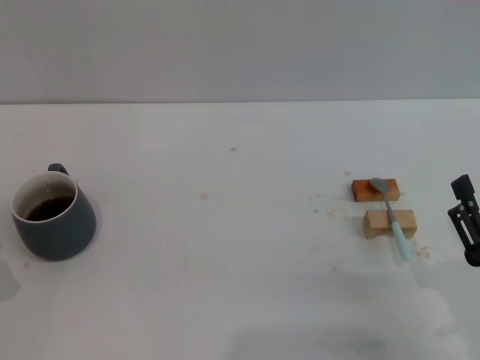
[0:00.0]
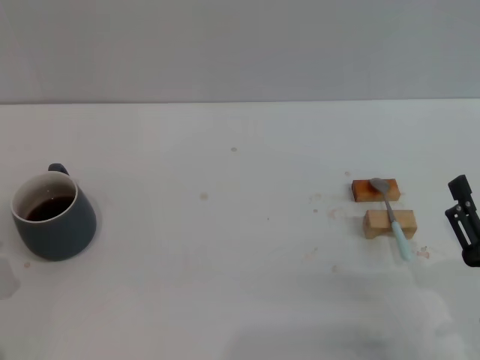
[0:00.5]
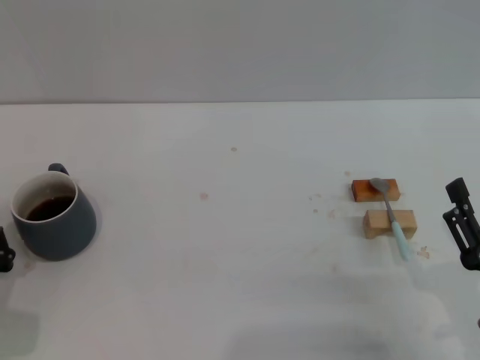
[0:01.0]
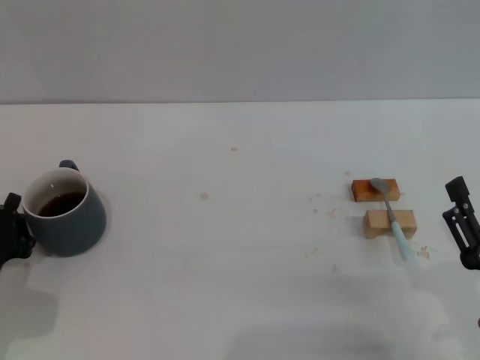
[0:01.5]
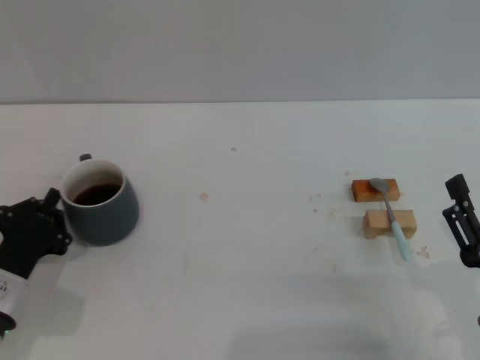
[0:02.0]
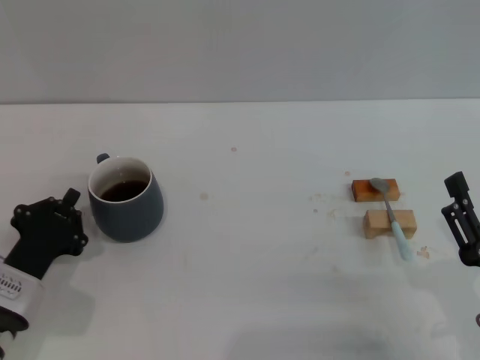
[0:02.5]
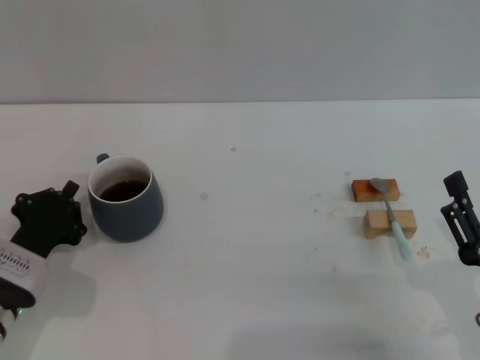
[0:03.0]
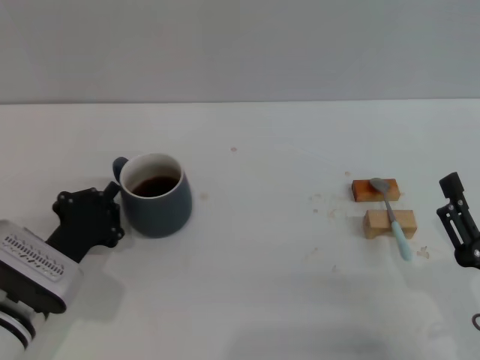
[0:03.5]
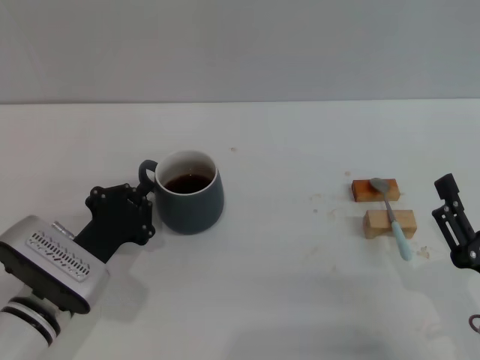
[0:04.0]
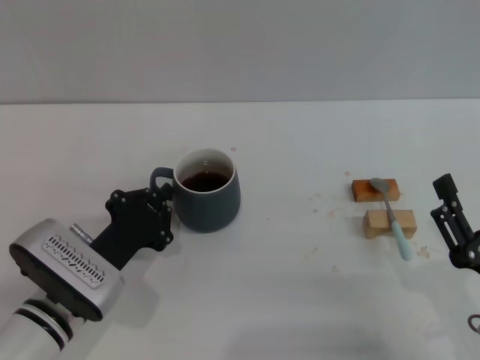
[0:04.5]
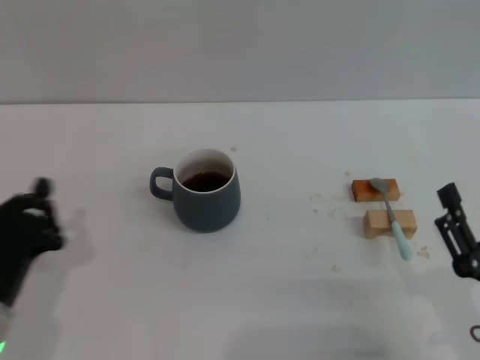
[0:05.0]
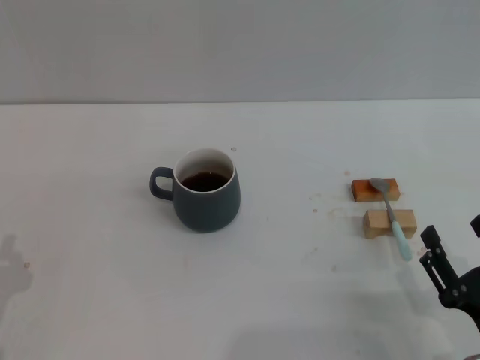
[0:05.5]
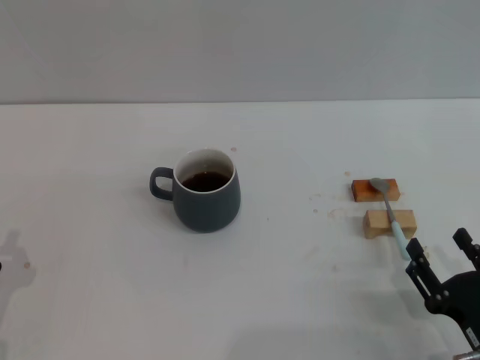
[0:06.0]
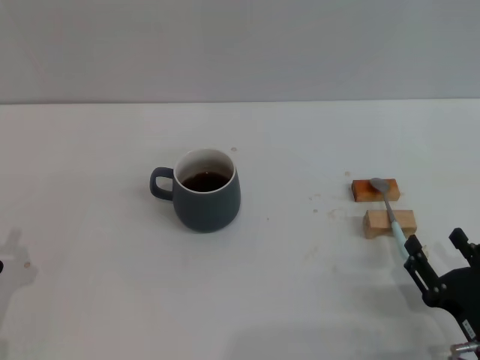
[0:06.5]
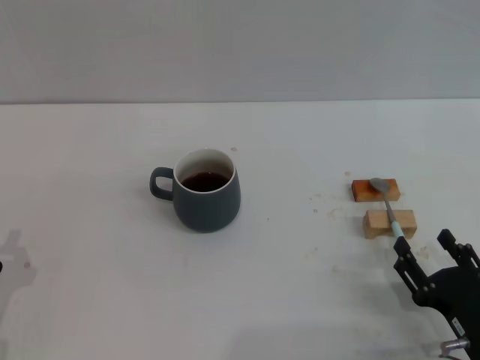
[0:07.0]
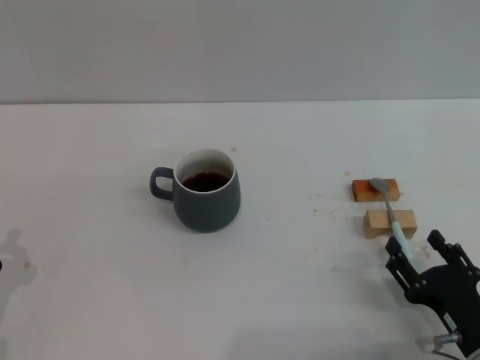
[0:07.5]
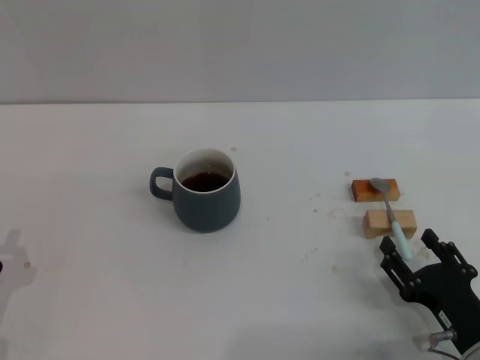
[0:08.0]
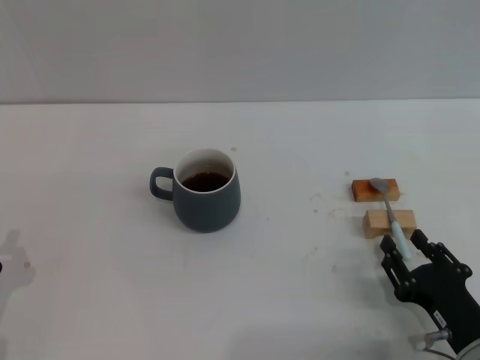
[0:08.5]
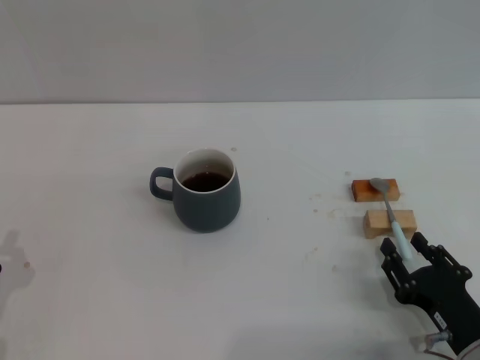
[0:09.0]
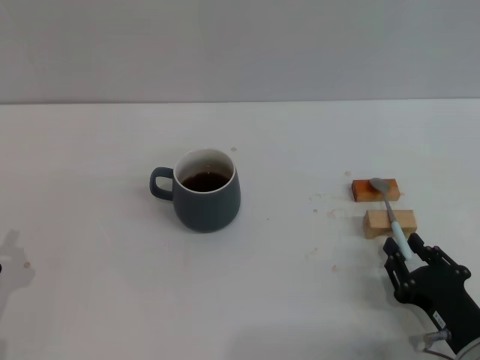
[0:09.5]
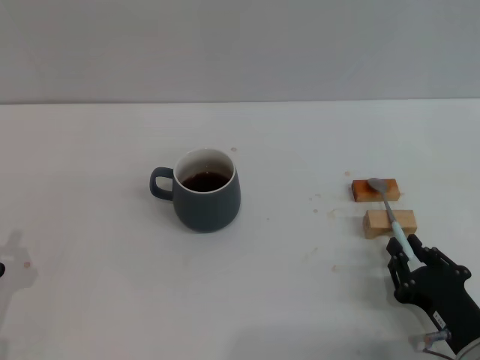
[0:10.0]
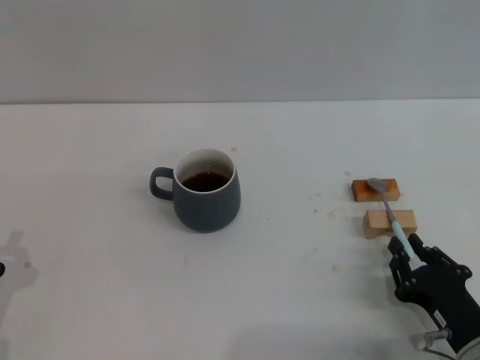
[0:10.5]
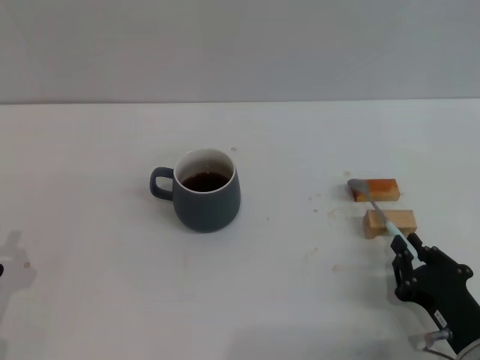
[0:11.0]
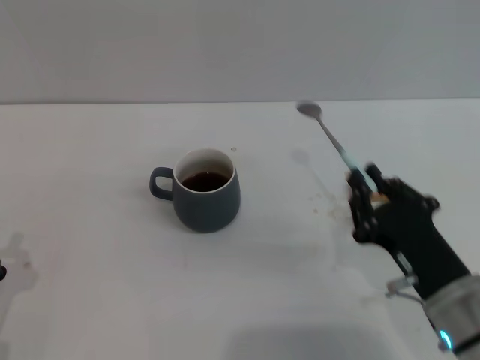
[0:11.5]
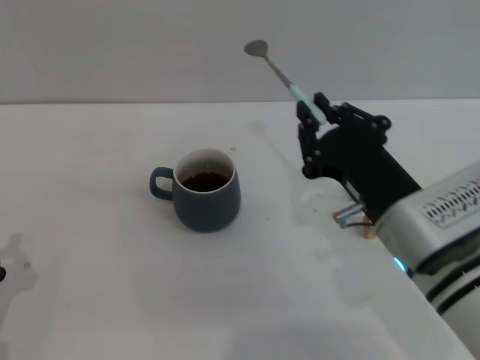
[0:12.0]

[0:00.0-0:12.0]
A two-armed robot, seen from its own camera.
Task of the whole recording: Move the grey cup to the center, lift the blue spoon, stir it three times in the cup, and put the spoon into the cup.
Step, 0:00.0 to 0:04.5: Move the cup with coffee to the center of view with the left gripper.
0:00.0 to 0:02.0: The left gripper is displaced forward by some 10 cm.
0:02.0 to 0:04.0: The left gripper goes about 5 cm to the right.
0:04.0 to 0:06.0: The left gripper heads to the left and backward, covering some 15 cm.
0:06.0 to 0:08.0: The grippers stay close to where they were, moving slightly.
0:08.0 to 0:10.0: The right gripper closes its fingers.
0:10.0 to 0:12.0: The right gripper is displaced upward, to the left and forward by approximately 20 cm.

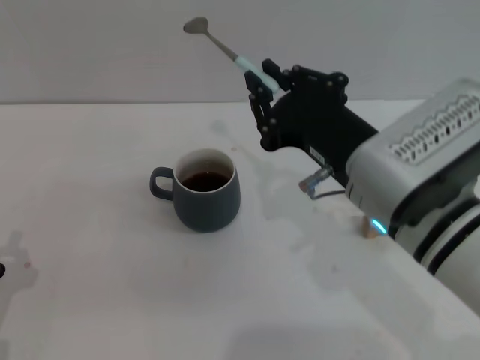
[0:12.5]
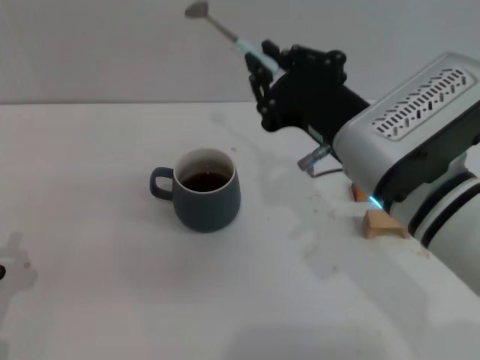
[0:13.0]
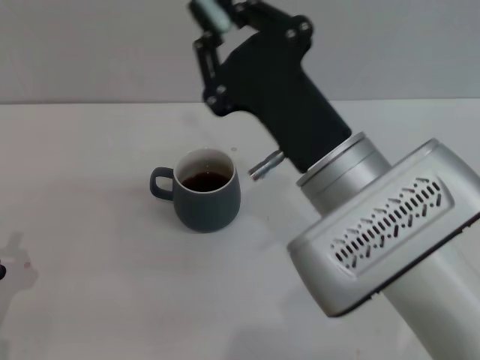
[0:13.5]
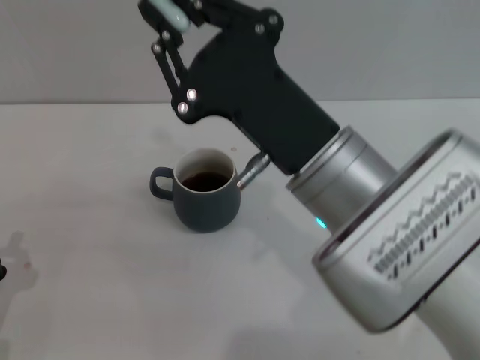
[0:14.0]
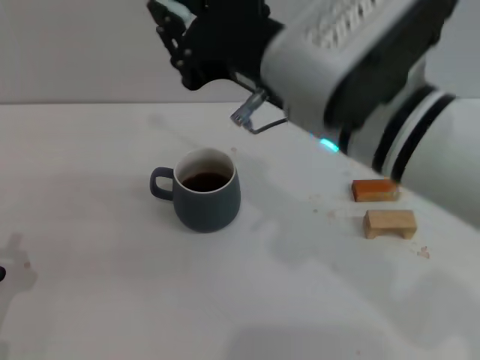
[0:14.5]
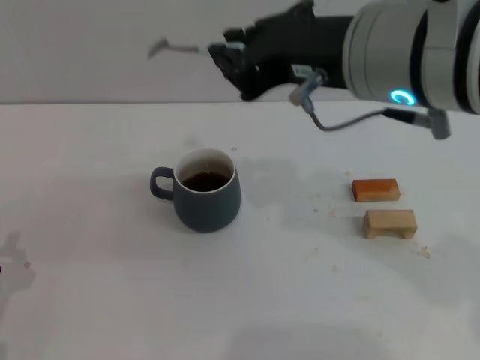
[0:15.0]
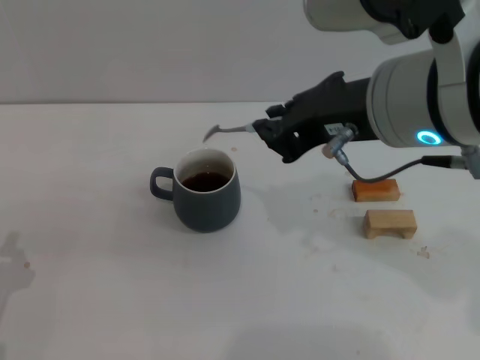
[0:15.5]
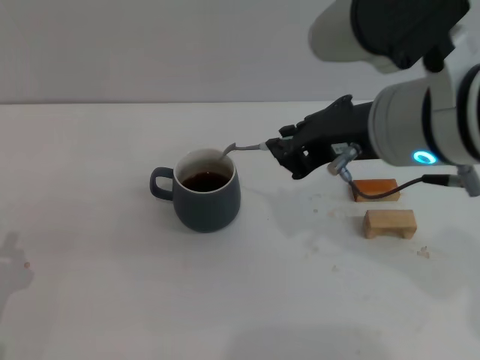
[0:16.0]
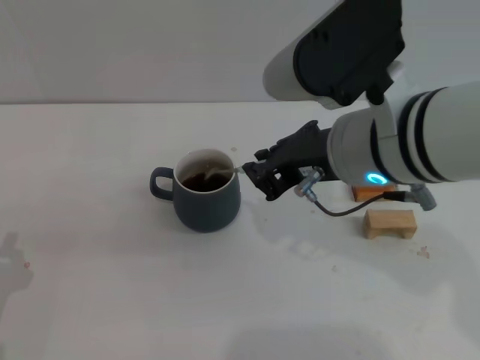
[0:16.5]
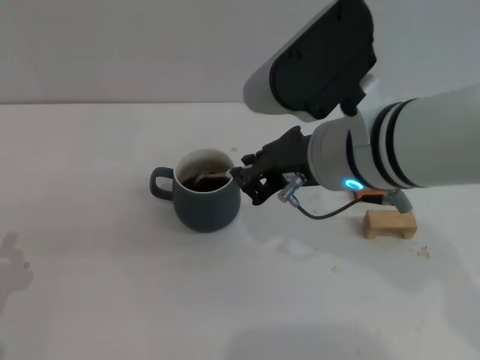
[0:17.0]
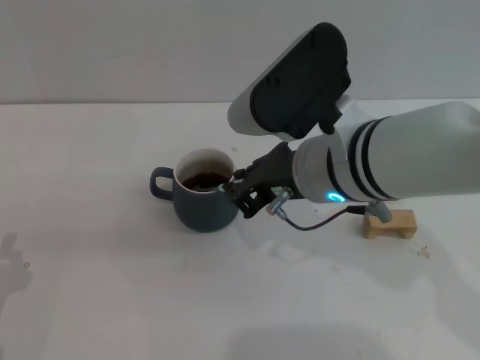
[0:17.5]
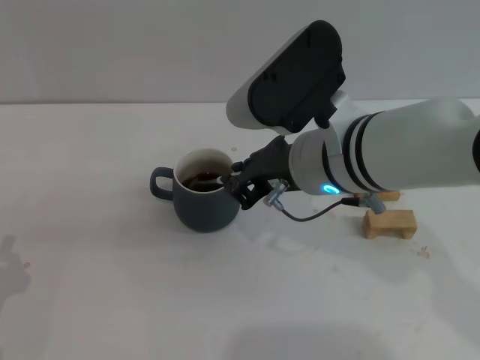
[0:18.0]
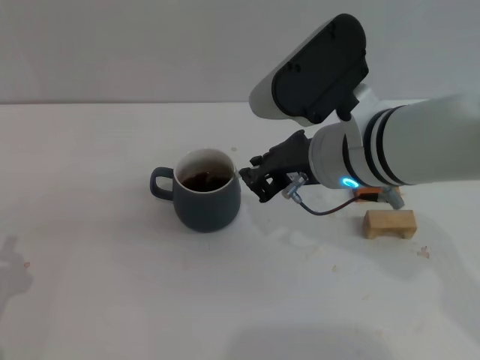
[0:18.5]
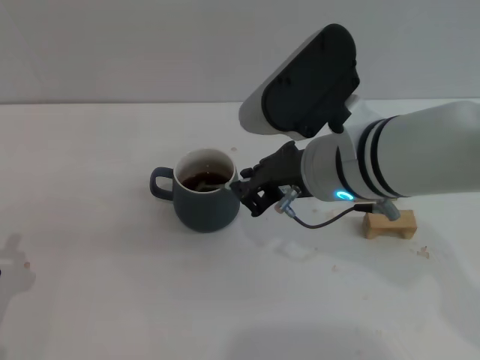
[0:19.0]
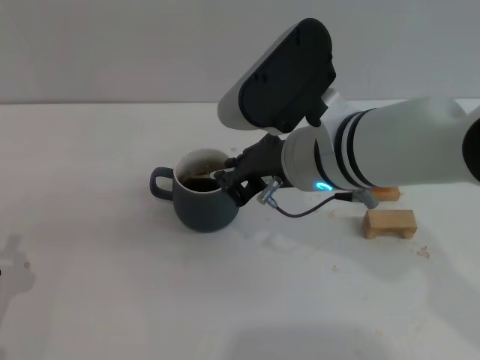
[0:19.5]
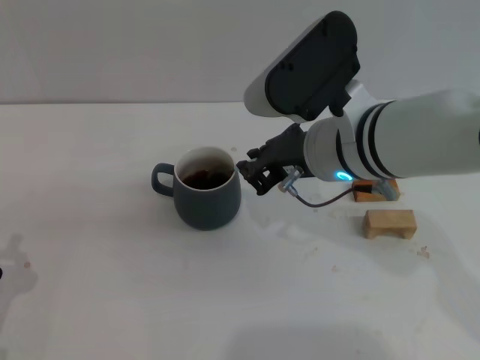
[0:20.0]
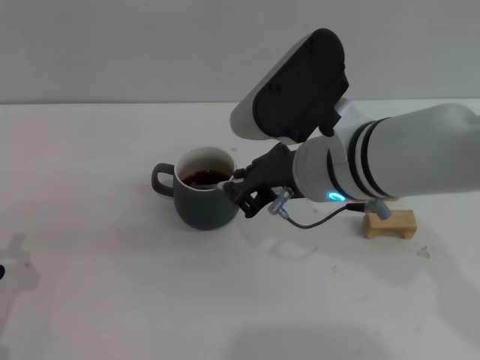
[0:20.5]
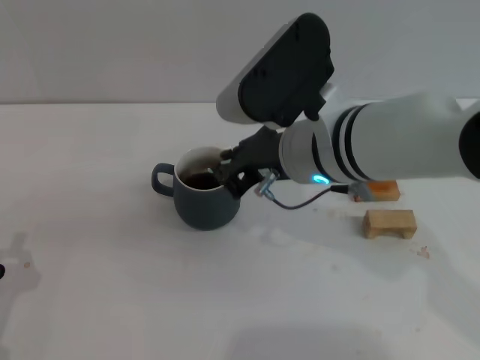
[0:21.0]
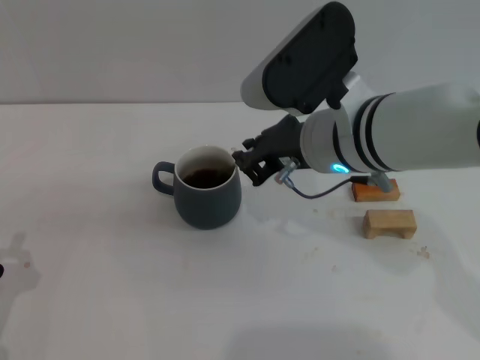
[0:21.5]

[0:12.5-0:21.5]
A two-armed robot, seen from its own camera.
Task of the whole recording: Move the grey cup to the center, lift the blue spoon, stir it three times in the cup, and put the spoon into the cup.
Step, 0:12.5 to 0:14.5: Pick up the spoon with the right gripper.
0:12.5 to 0:14.5: The right gripper is displaced upward by about 5 cm.
0:17.0 to 0:21.5: There are only small adjustments of the grippers.

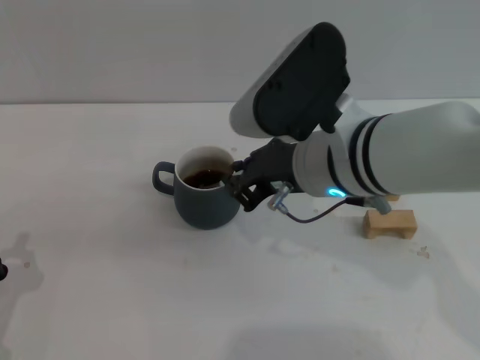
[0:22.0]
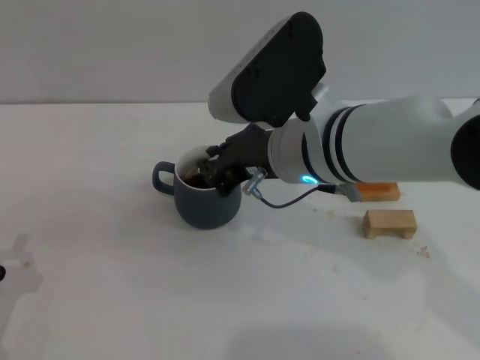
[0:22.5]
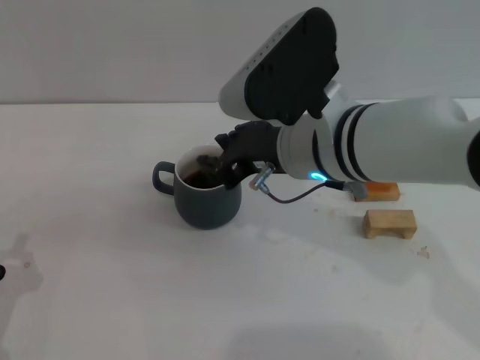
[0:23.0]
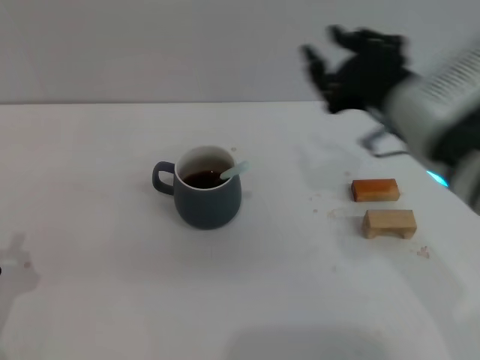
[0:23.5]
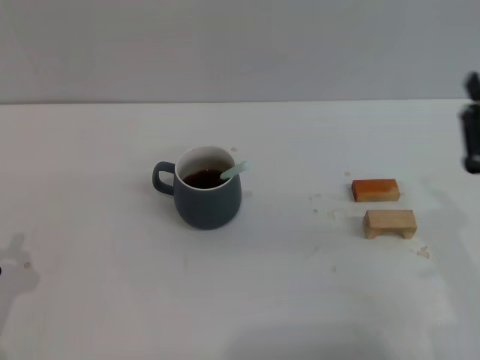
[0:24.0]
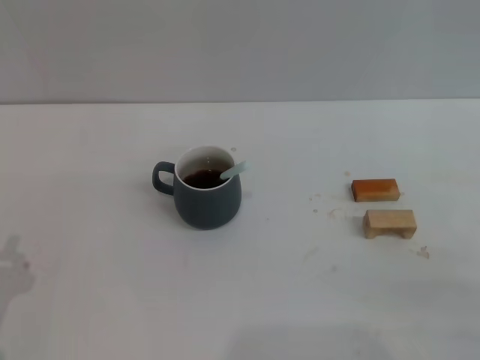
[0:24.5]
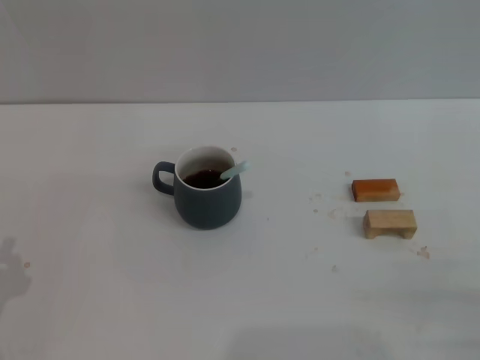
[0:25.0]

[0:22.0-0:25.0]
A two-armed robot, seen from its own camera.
Task of the whole recording: Move the grey cup to the center, lift the blue spoon, stir it three times in the cup, and put the spoon into the cup.
0:22.0 to 0:23.5: The right gripper shifts about 10 cm to the right.
0:23.5 to 0:25.0: The right gripper heads to the right, downward and backward, covering approximately 25 cm, and opens its fingers.
